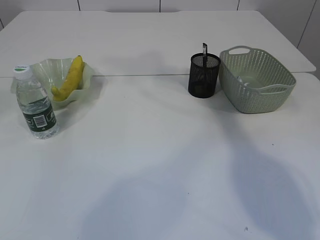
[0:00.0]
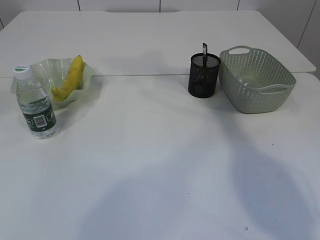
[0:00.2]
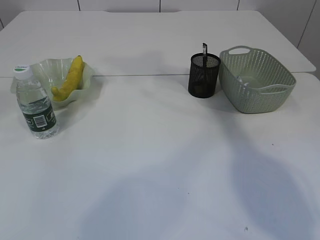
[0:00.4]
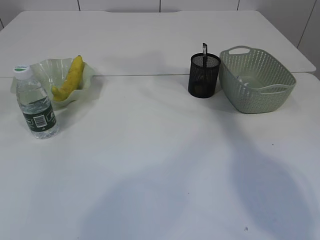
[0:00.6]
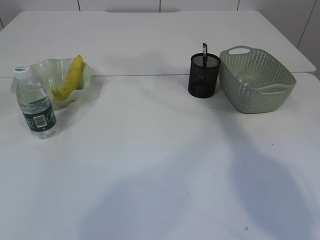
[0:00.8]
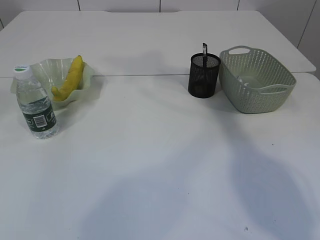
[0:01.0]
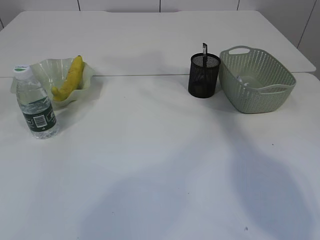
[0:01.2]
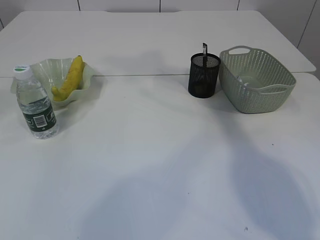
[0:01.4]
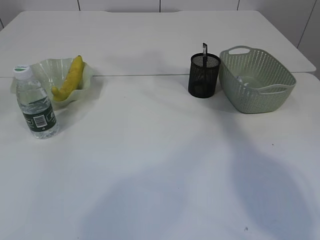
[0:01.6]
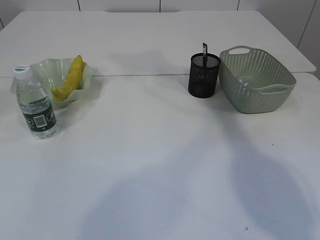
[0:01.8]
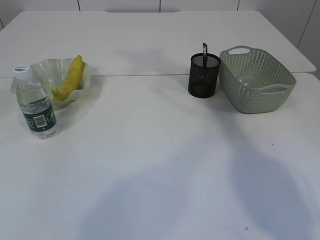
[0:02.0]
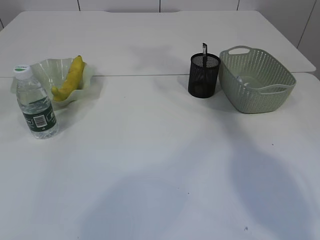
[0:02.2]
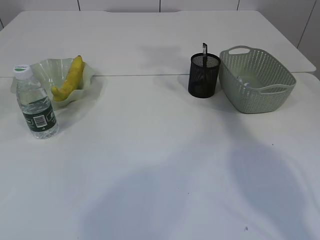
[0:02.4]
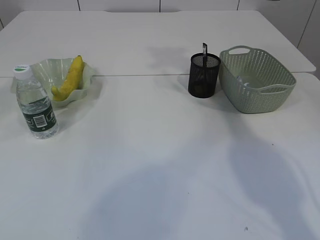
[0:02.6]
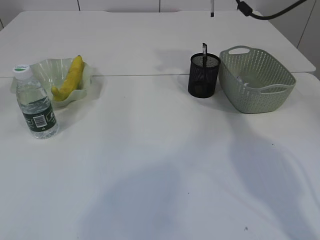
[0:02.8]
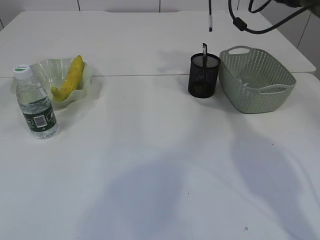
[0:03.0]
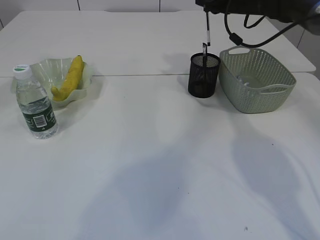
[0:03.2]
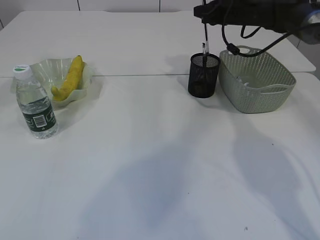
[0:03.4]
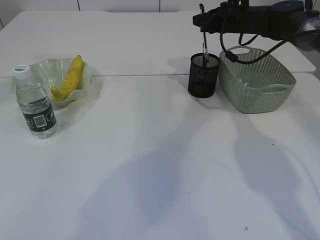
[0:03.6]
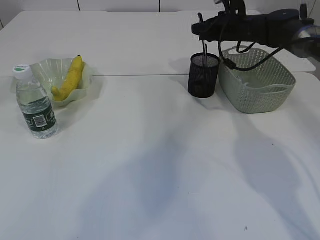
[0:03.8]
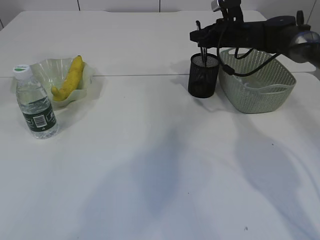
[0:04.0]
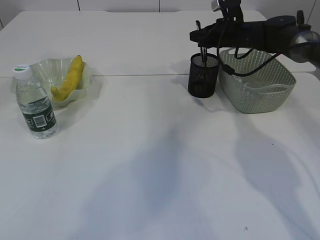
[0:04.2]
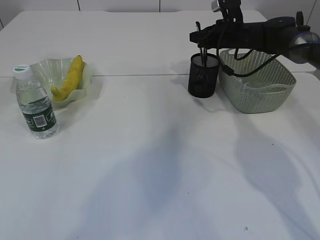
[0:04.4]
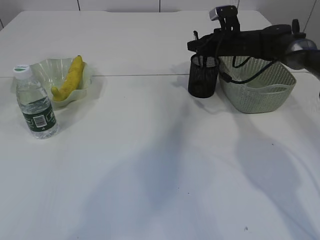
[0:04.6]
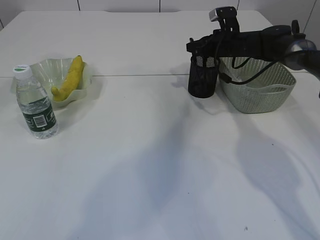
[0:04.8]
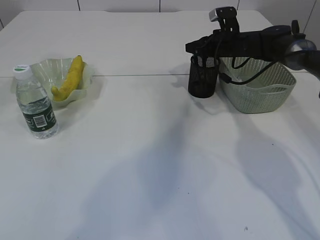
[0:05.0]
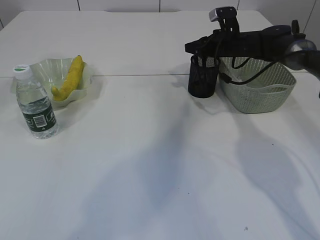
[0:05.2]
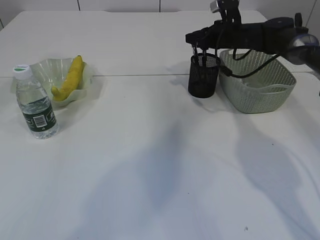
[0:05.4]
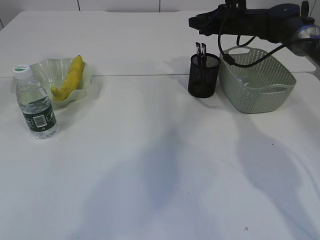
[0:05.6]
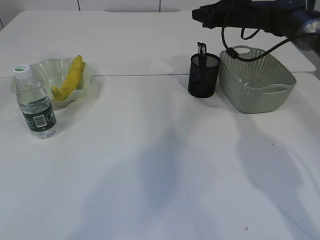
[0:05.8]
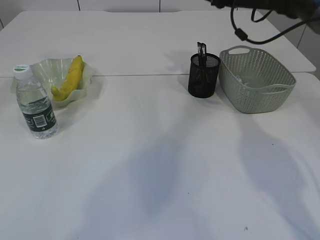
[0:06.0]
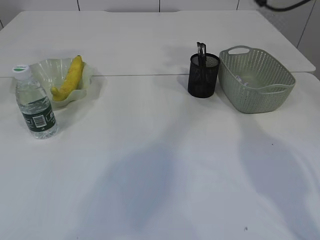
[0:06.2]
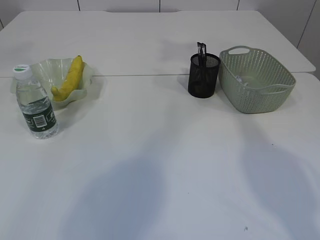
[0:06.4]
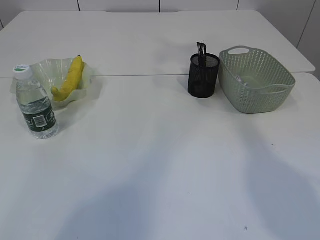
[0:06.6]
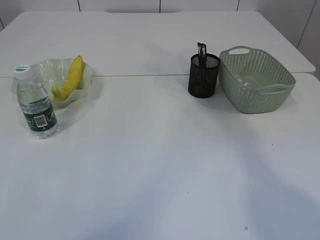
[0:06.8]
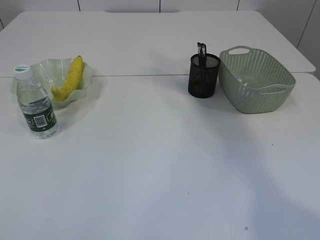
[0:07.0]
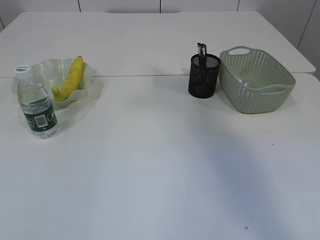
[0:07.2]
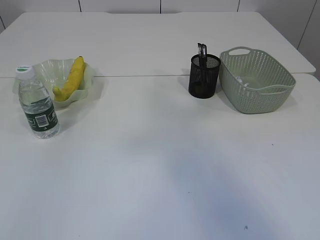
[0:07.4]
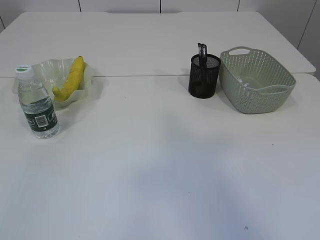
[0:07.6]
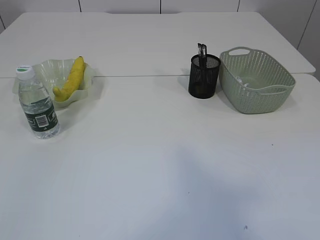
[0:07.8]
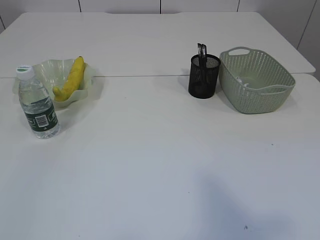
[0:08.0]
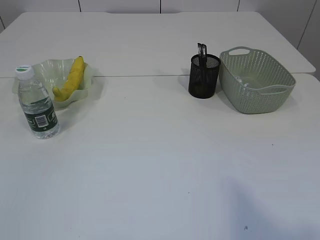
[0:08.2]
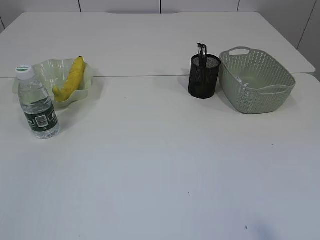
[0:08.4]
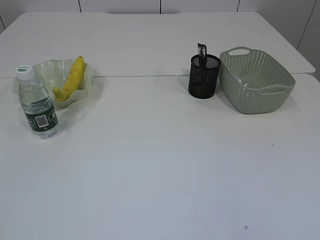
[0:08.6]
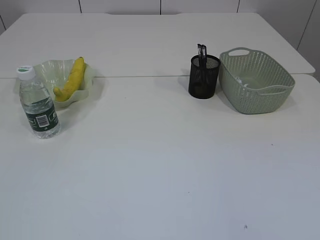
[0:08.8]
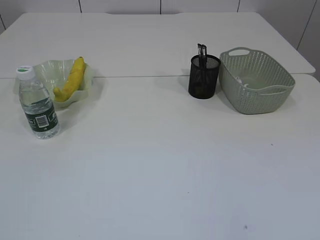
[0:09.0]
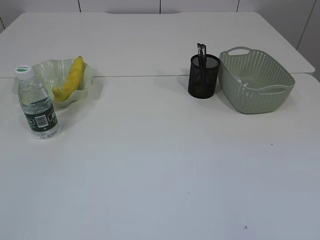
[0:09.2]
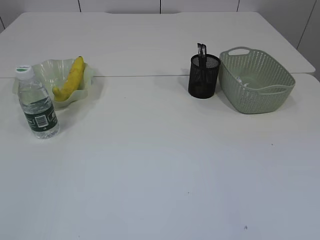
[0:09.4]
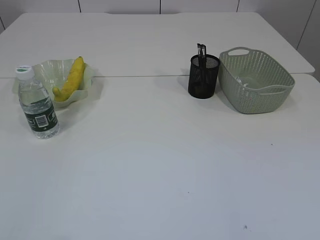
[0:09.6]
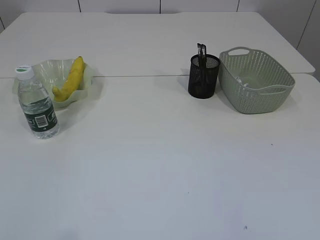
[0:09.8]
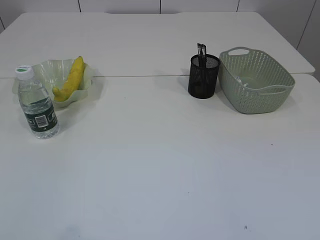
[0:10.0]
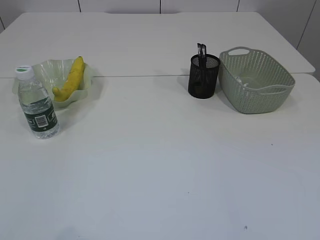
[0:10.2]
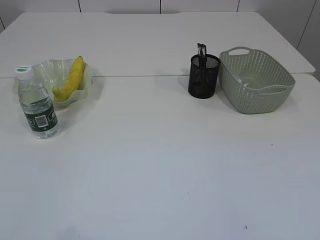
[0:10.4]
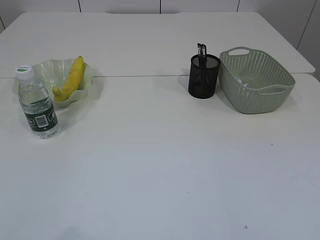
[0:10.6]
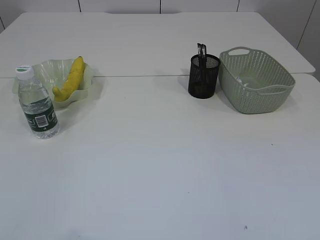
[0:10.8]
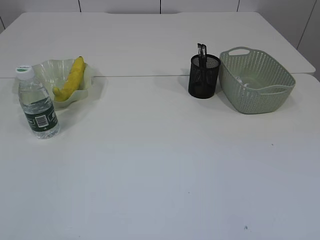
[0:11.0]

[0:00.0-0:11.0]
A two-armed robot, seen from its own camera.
Step, 0:02.2 to 0:05.4: Place the pen into the pen holder.
0:01.6 to 0:03.2: The right gripper moves downward and forward, roughly 30 cm. The left gripper goes roughly 5 cm forward.
0:03.2 to 0:04.8: The left gripper ends up approximately 5 cm from where it was. The right gripper heads downward, covering some 10 cm.
0:04.8 to 0:06.2: The right gripper heads upward, covering approximately 20 cm, while the left gripper closes.
0:06.2 to 0:07.8: The left gripper is displaced backward by approximately 60 cm. The right gripper moves backward and upward, approximately 60 cm.

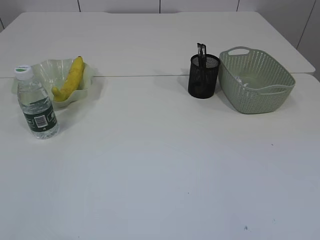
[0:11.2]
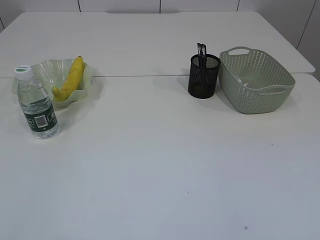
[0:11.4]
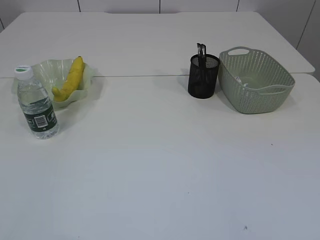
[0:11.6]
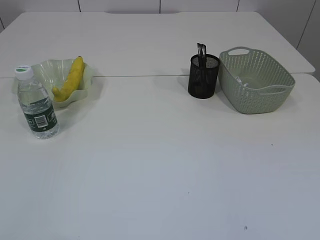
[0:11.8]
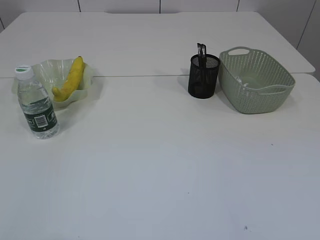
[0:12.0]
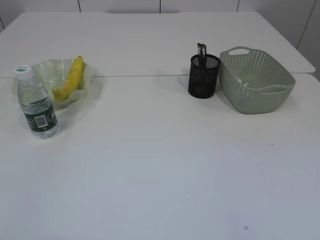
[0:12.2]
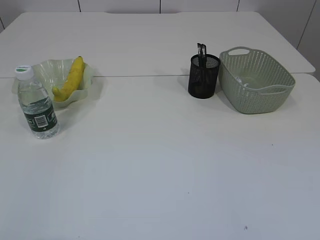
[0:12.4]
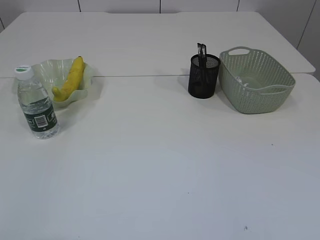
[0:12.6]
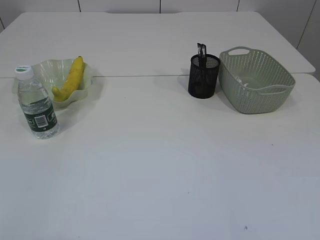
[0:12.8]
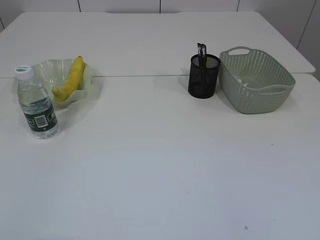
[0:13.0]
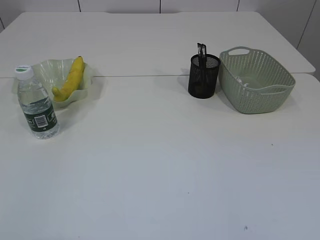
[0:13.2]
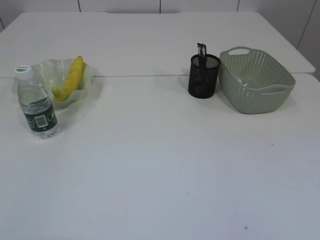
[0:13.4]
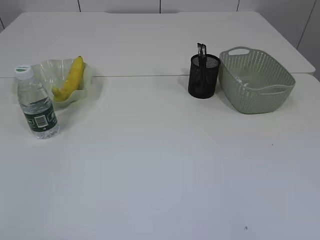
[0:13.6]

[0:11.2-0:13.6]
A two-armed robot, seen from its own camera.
0:12.4 to 0:13.6: The two grippers keep their place.

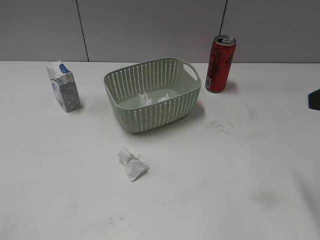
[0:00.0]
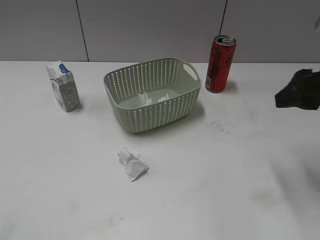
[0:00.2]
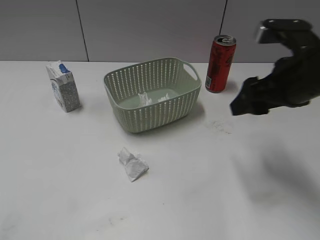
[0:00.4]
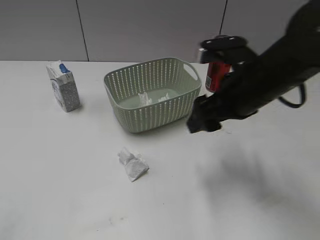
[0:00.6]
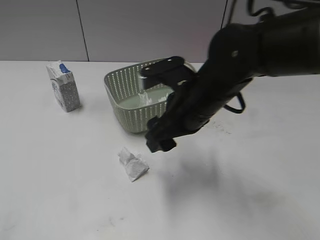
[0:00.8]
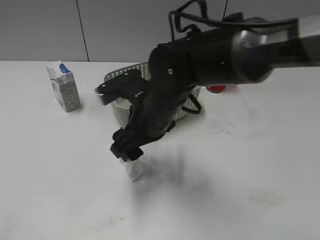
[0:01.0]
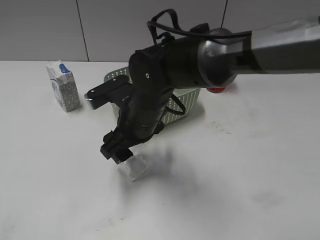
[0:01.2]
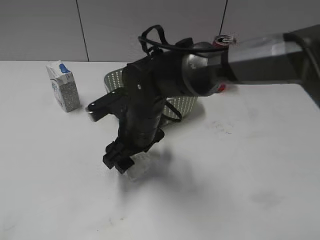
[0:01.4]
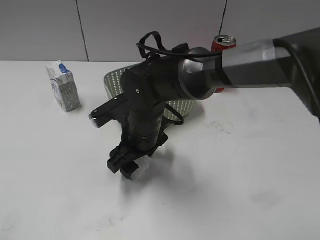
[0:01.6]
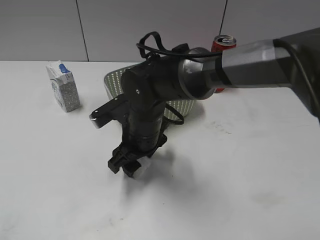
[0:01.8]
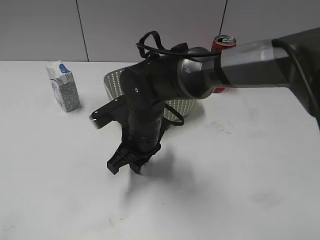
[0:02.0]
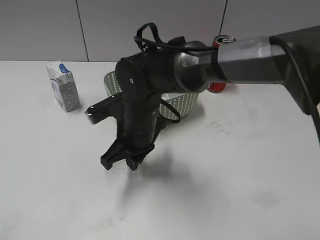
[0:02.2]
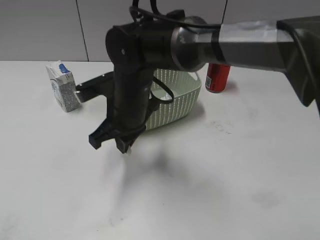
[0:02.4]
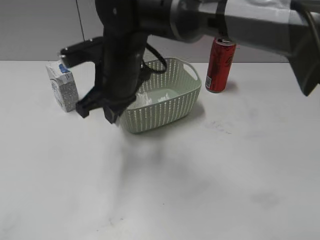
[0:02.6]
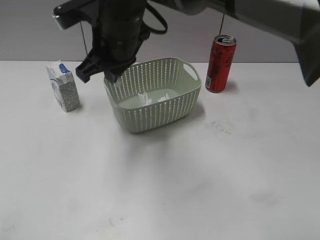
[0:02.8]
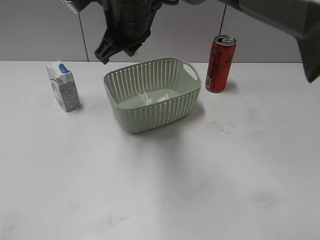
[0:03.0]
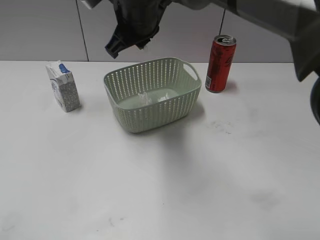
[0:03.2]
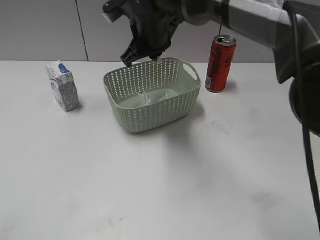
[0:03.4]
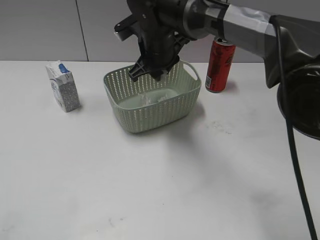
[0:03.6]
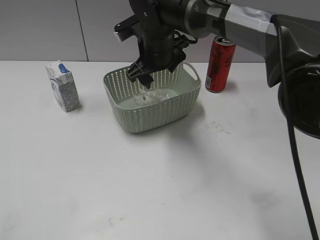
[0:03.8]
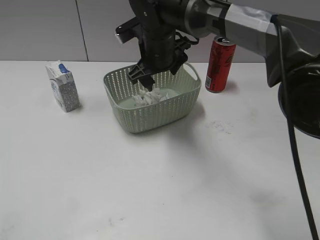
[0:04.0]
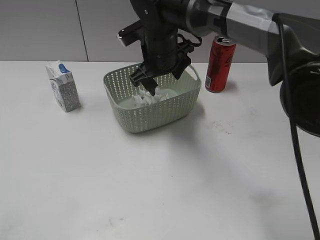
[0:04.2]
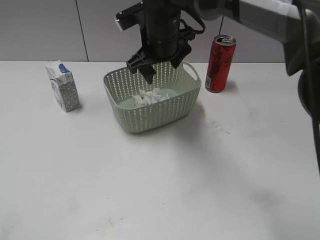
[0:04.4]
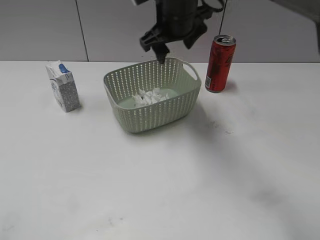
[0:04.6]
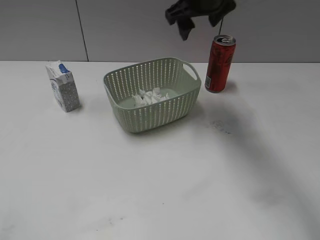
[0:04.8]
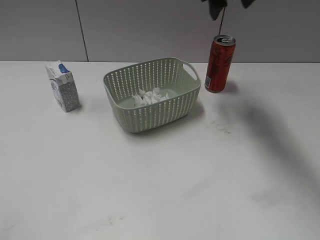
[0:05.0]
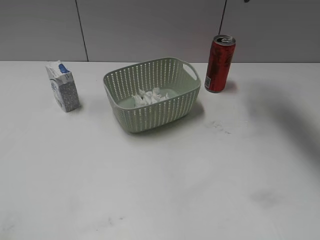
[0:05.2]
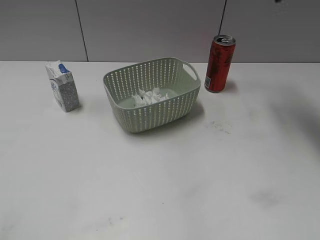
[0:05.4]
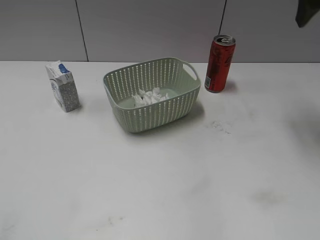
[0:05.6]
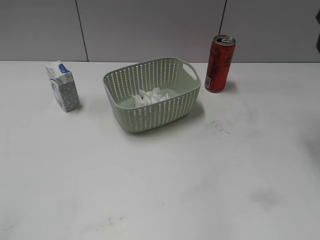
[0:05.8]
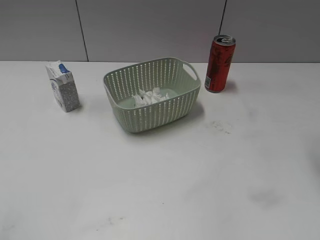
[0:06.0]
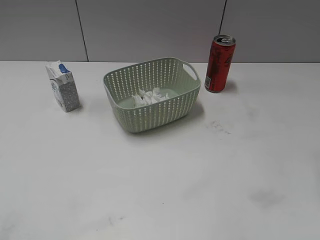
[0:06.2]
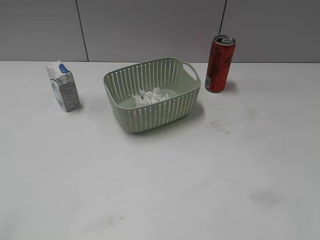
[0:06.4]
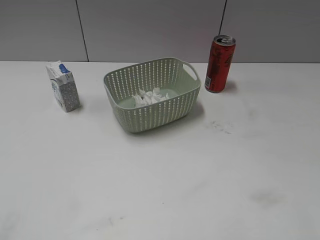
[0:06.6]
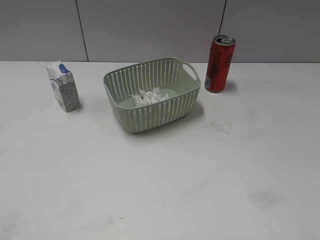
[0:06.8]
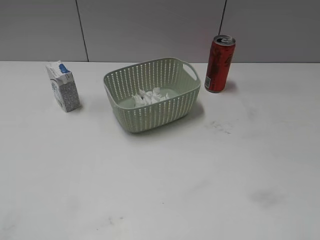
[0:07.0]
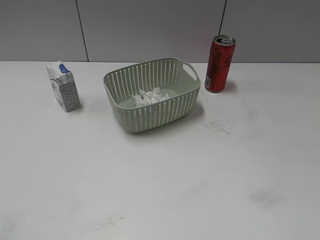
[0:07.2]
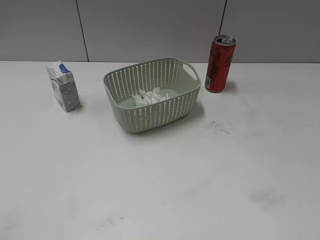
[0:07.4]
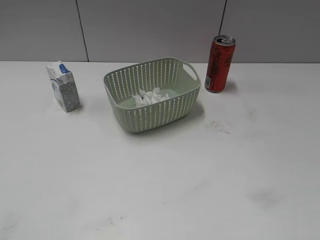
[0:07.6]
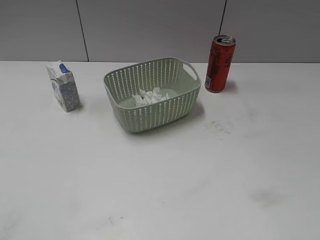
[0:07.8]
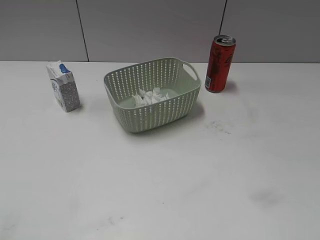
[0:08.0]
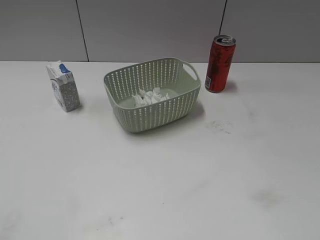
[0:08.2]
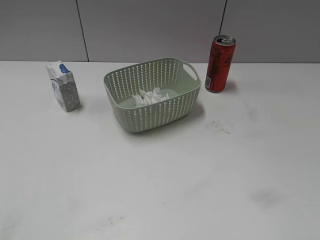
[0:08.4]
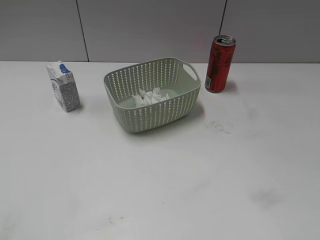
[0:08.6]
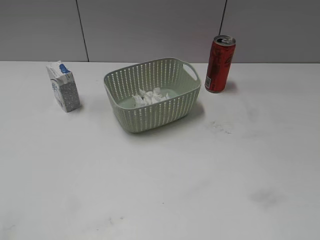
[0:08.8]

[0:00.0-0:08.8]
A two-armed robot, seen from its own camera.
Step, 0:00.0 to 0:02.2: Grasp the waste paper with right gripper.
Step, 0:02.4 to 0:03.8: Place the waste paper in the basket with right gripper.
0:00.0 to 0:01.4: The right gripper goes roughly 35 cm to the left and downward.
0:01.4 to 0:03.0: The right gripper shifts roughly 15 cm upward and forward, and closes its fingers.
0:03.0 to 0:04.4: The right gripper is displaced downward by roughly 5 cm, and opens its fingers.
0:04.4 to 0:05.8: The right gripper is displaced to the right and upward by some 30 cm.
